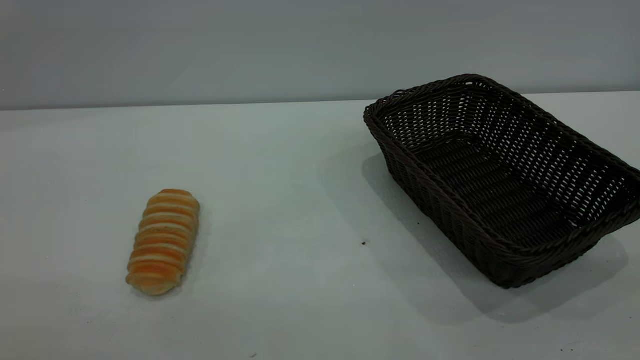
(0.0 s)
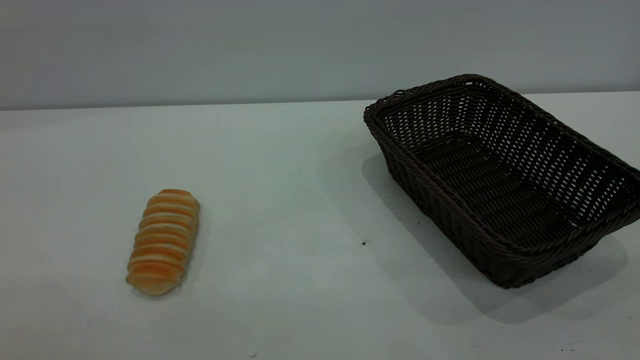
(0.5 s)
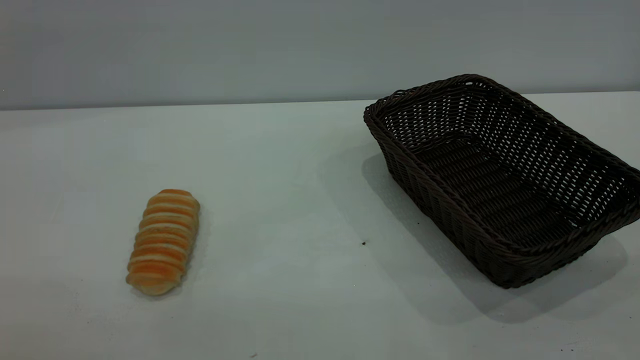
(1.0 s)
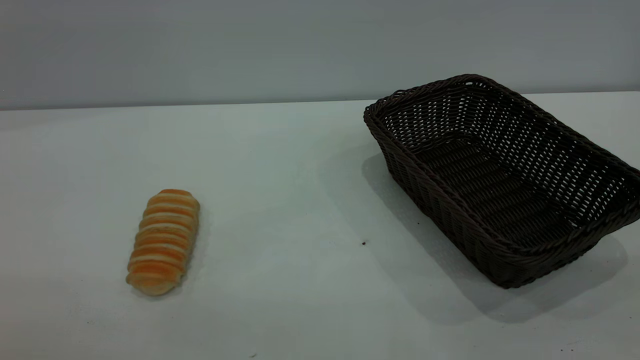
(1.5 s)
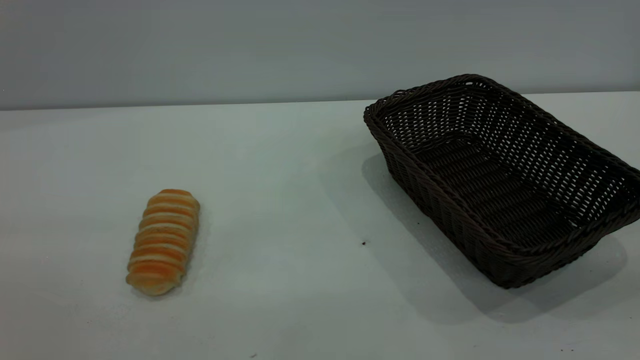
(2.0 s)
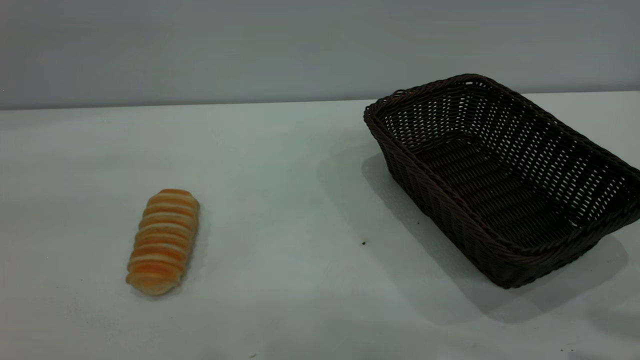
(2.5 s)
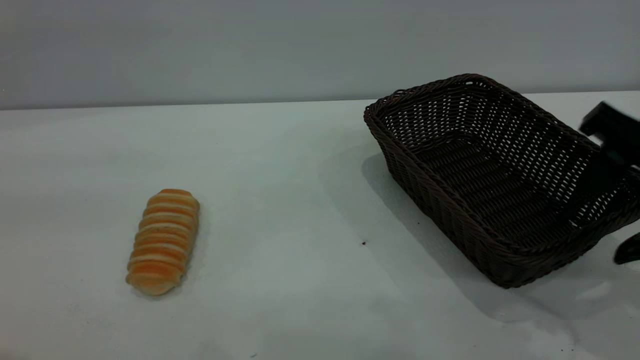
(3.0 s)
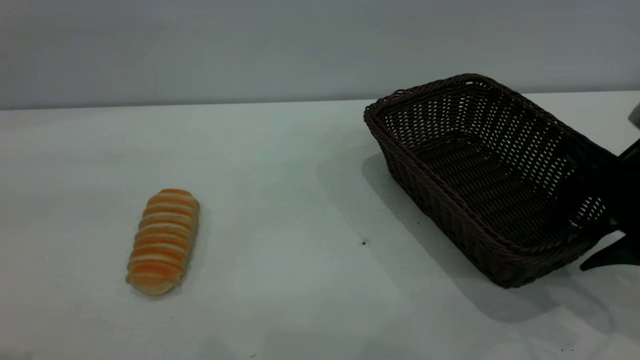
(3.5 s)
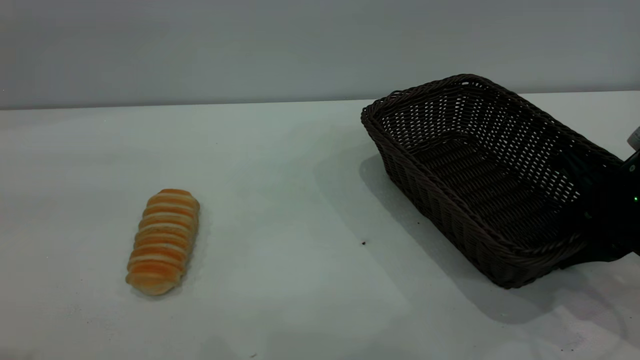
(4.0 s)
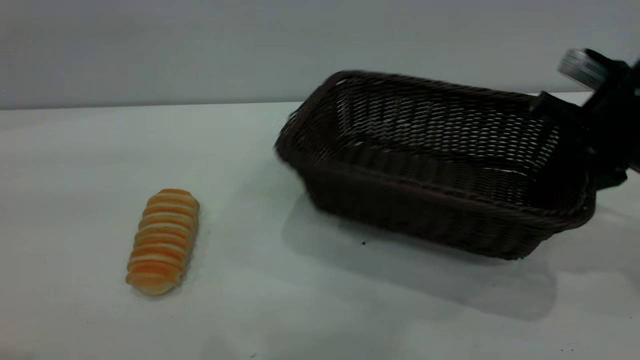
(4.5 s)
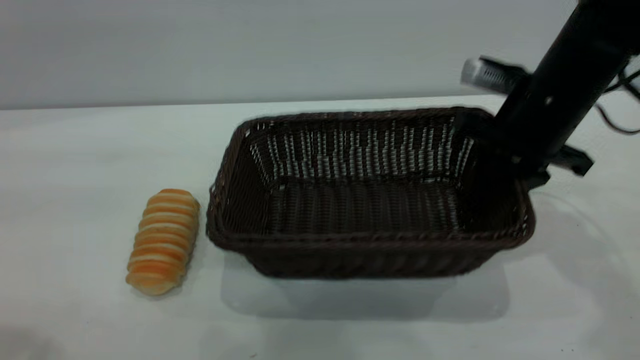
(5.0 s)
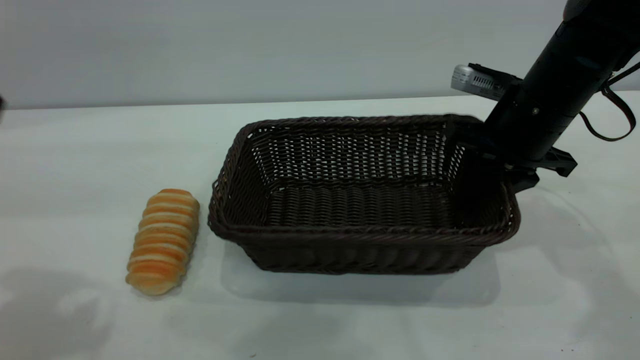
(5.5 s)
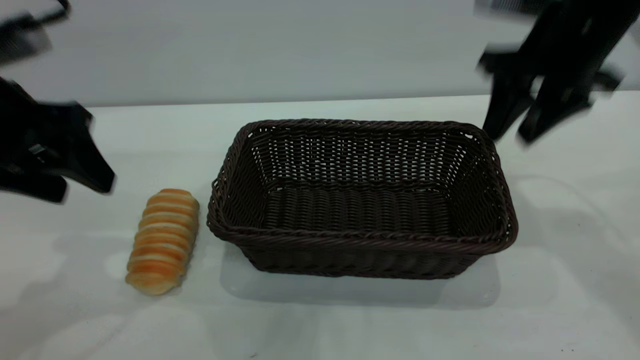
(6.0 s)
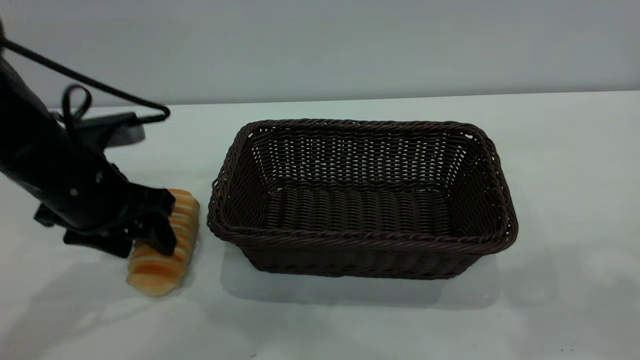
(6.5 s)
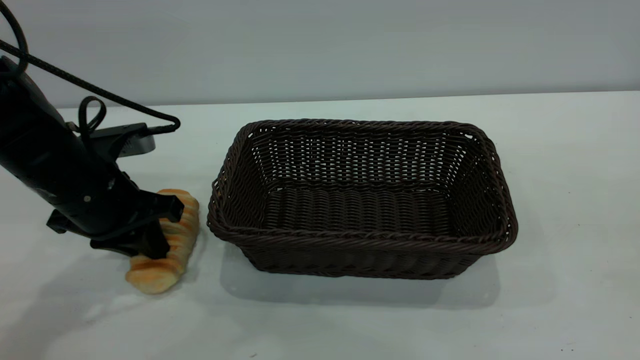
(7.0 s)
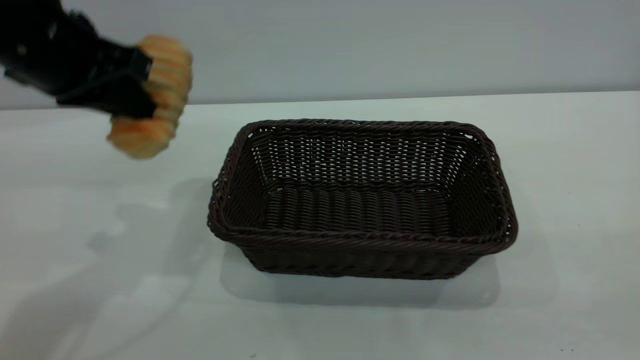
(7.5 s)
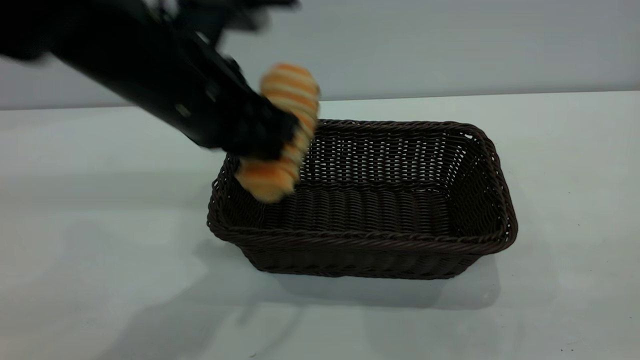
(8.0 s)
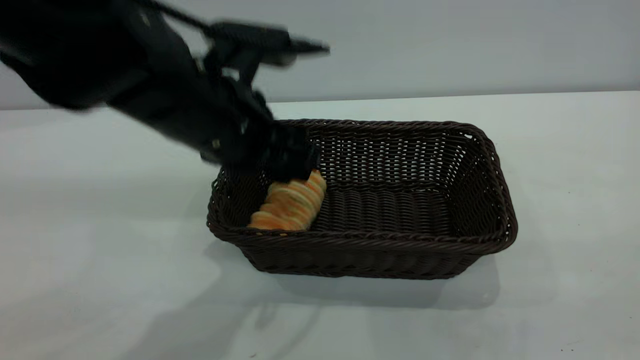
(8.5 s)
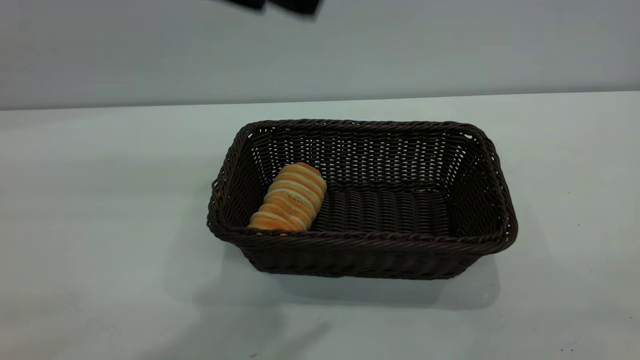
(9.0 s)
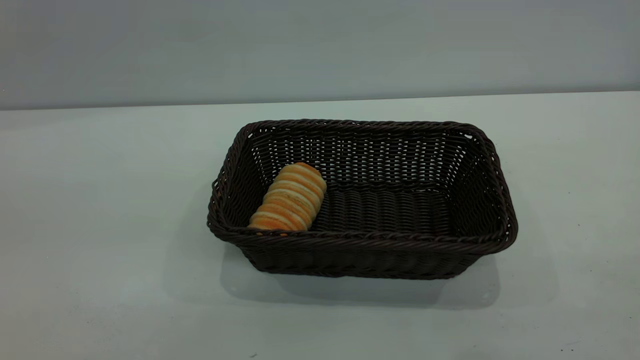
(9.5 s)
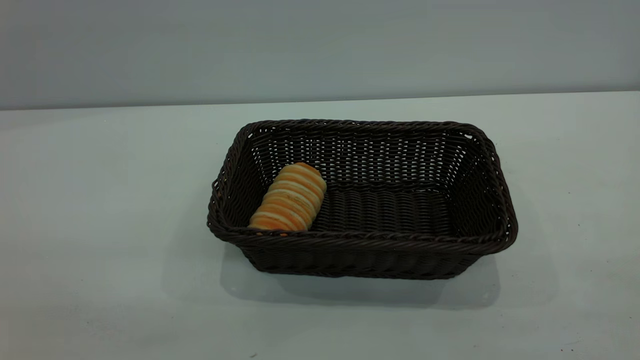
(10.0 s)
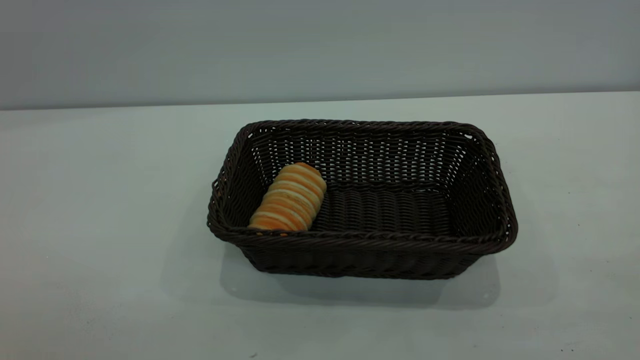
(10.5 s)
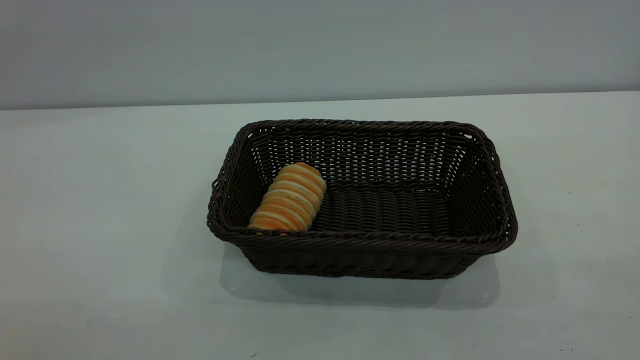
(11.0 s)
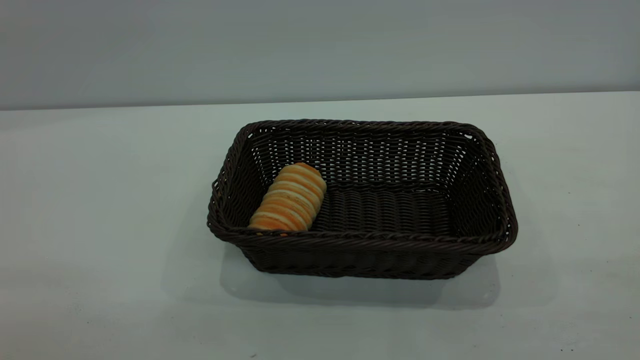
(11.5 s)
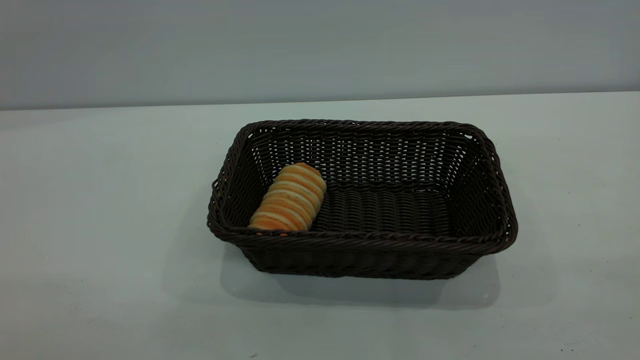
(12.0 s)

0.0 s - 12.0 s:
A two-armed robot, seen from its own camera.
Task of the whole recording: One hand grasps the black basket and places it in the middle of the table, while the other hand picks up the long bread and puts it into the black basket.
Step, 0.0 s - 6.0 s: Move the basket to the center of view.
Step, 7.5 s - 8.5 s: place the bread into the basket.
2.0 s - 4.0 s: The right gripper goes roughly 35 cm forward and downward, and closes.
4.0 s - 6.0 s: The right gripper heads upward, forward and to the left, covering some 15 cm, and opens its fingers, while the left gripper moves downward and forward, about 20 cm.
6.0 s - 8.0 s: The right gripper is displaced backward by approximately 35 cm. The left gripper moves to the right, some 15 cm, and closes its fingers.
8.0 s - 10.0 s: The left gripper heads backward, upward and to the left, covering some 30 cm, and opens.
